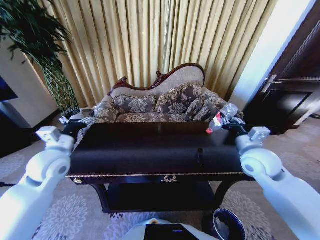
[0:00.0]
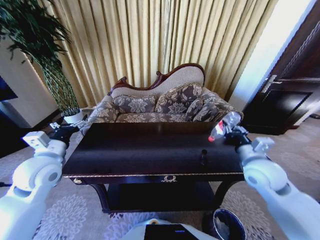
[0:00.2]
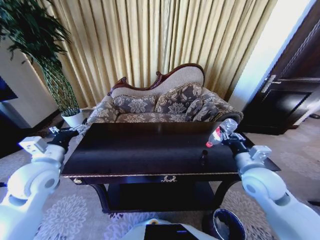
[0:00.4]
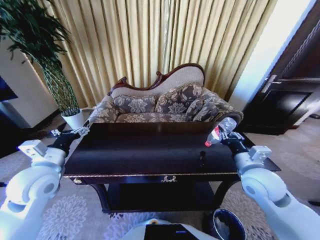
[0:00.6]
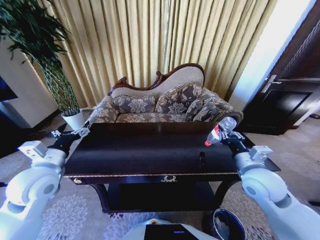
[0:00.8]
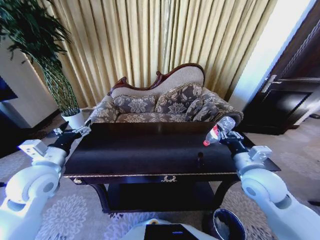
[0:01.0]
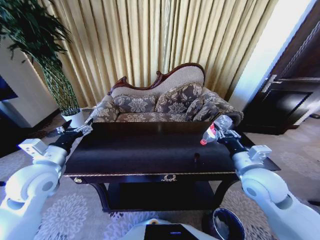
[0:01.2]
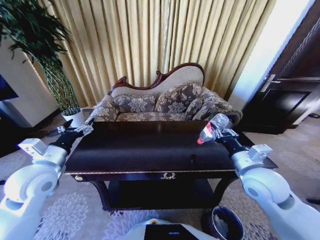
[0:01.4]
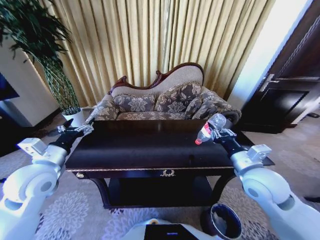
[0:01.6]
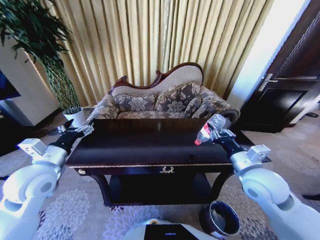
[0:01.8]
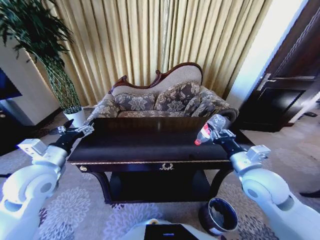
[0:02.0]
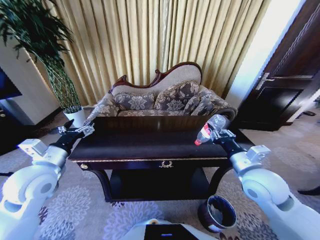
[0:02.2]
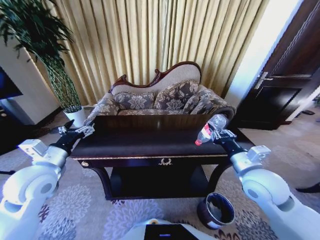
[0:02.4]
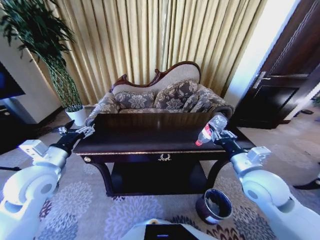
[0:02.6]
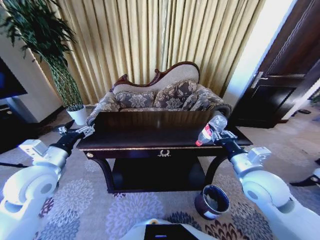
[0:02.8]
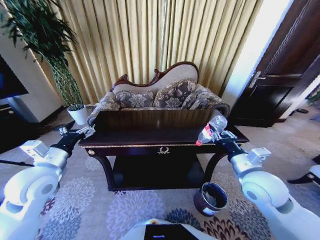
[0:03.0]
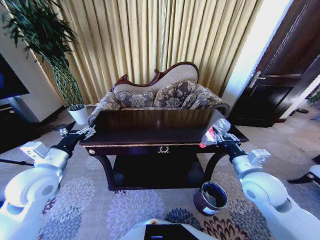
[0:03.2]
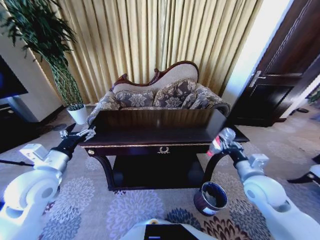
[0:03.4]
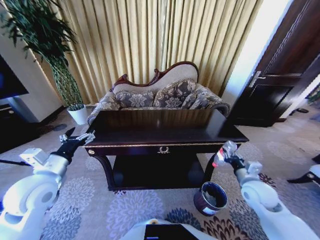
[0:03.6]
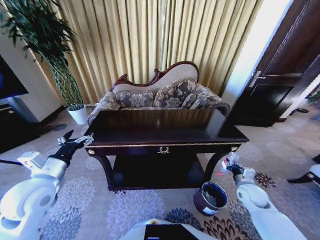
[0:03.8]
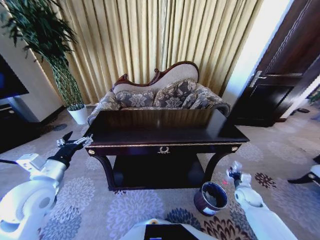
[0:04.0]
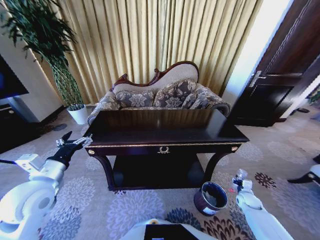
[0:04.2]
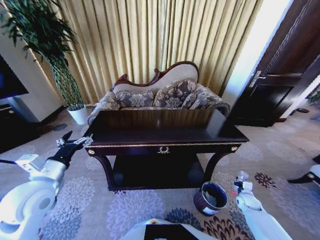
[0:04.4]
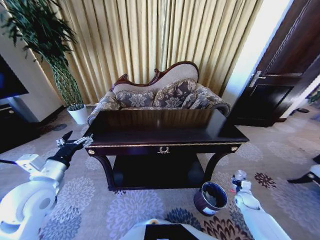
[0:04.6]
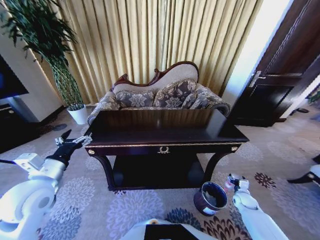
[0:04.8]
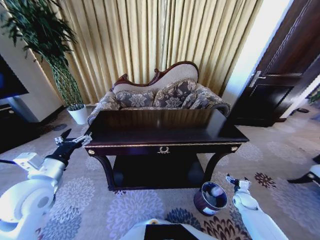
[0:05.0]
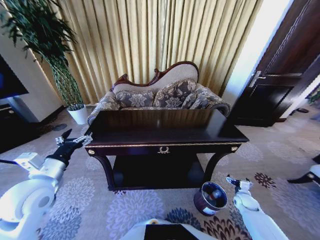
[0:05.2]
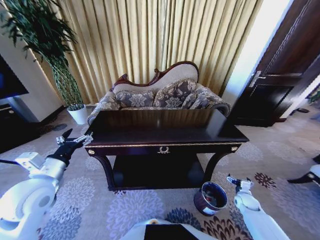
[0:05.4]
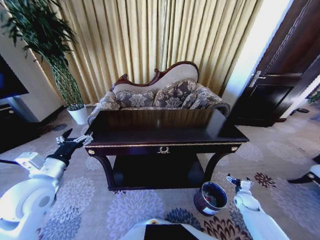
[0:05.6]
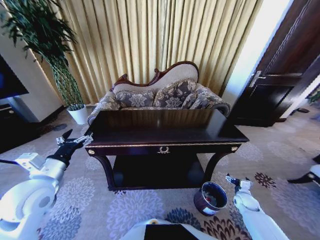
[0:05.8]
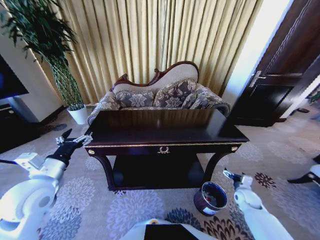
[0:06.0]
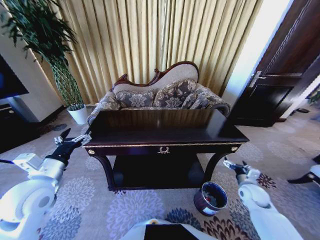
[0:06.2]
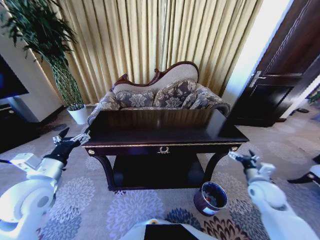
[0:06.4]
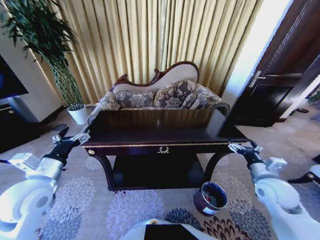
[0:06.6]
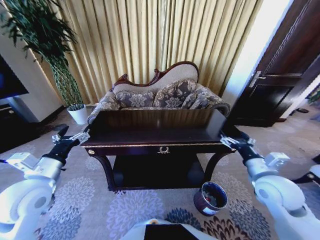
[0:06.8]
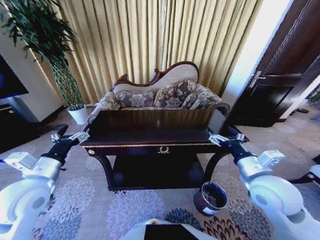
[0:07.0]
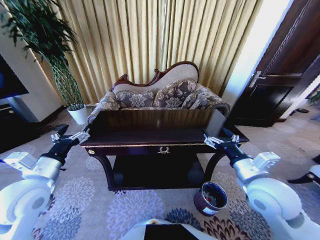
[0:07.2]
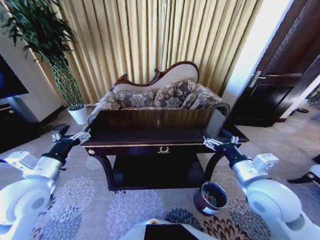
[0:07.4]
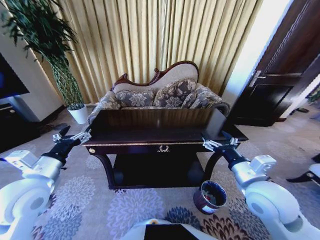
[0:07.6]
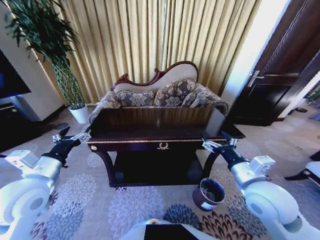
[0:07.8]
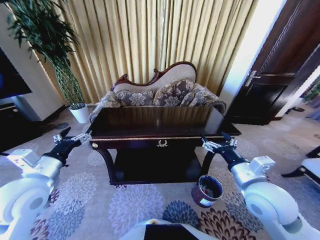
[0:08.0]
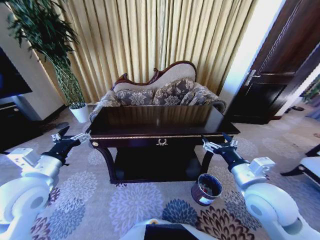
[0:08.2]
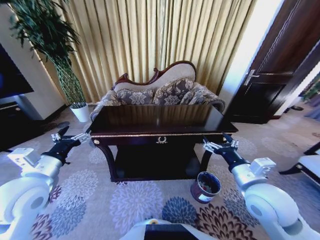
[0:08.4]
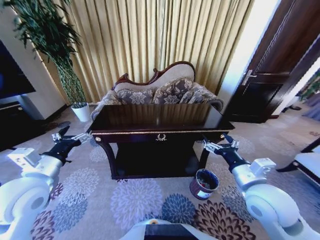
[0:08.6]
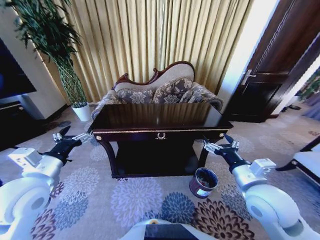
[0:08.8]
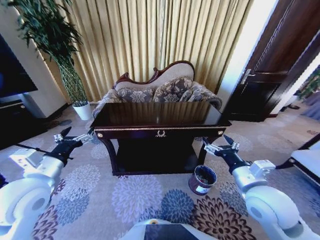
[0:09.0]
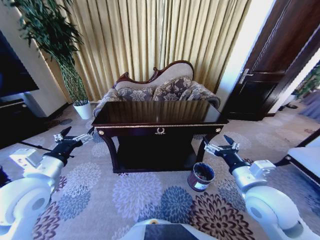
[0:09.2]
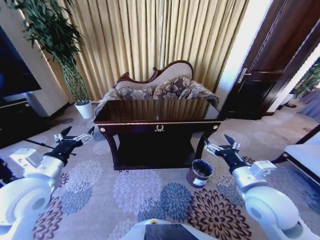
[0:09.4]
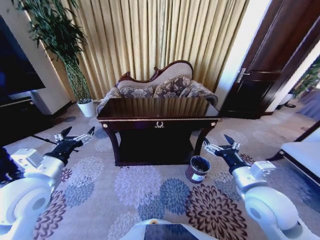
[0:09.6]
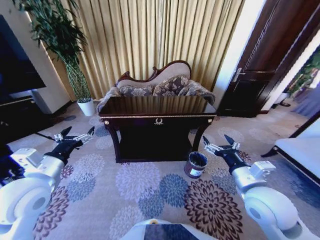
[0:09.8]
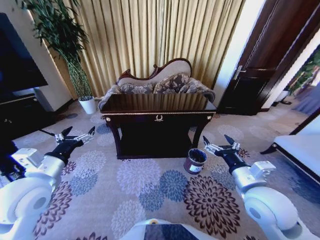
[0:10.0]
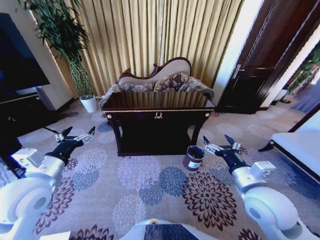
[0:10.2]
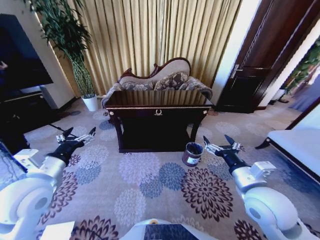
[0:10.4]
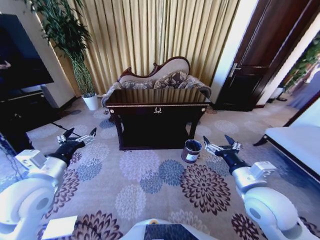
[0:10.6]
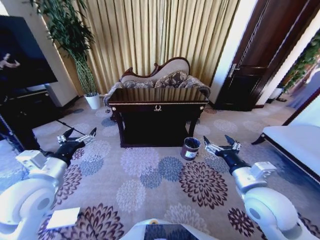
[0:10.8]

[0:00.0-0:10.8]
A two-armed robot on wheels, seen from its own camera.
Task of the whole recording: Move to the front of the table and place the trash on the table into the trash bin.
0:00.0 to 0:01.6: The right gripper heads backward, covering approximately 5 cm.
0:03.0 to 0:04.6: The right gripper goes roughly 40 cm downward and to the right.
0:04.6 to 0:06.2: The right gripper moves upward and to the left, some 15 cm, and opens its fingers.
0:06.2 to 0:07.8: The right gripper shifts about 25 cm upward and to the left.

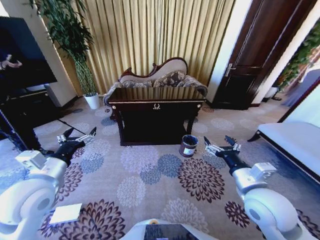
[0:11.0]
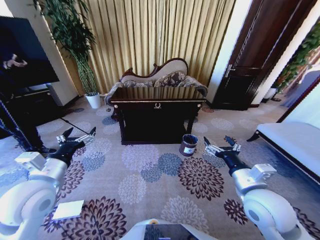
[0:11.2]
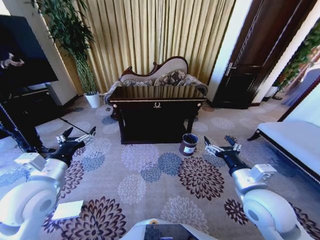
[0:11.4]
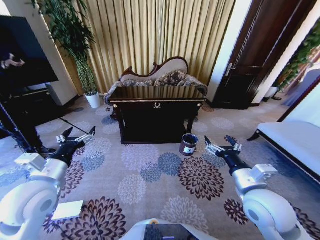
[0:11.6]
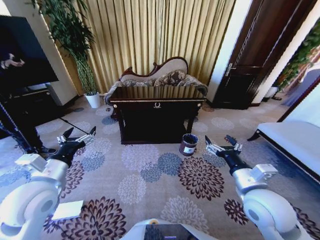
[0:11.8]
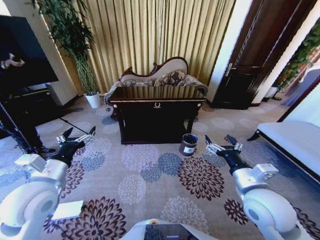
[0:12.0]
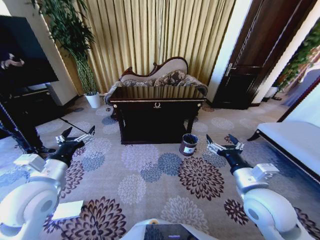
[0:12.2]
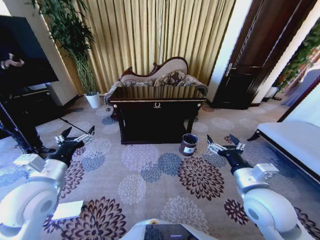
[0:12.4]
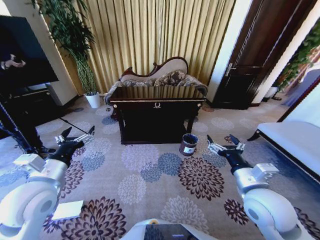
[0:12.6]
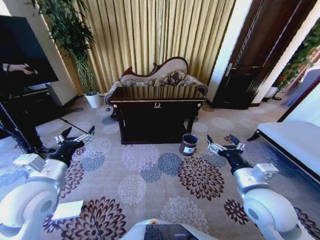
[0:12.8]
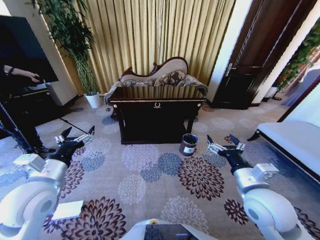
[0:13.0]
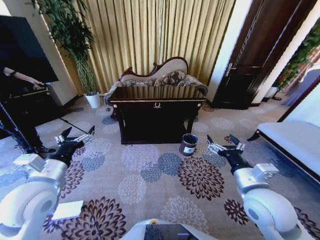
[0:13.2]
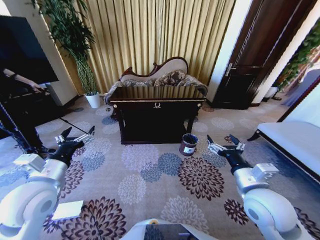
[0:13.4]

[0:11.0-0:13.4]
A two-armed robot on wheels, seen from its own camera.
Task of the whole recording: Move to the front of the table and place the trash on the table into the trash bin.
0:11.0 to 0:13.4: Both grippers stay about where they are.
